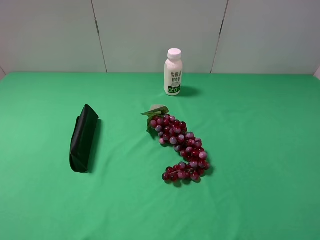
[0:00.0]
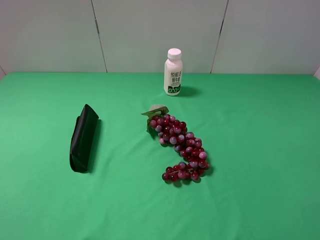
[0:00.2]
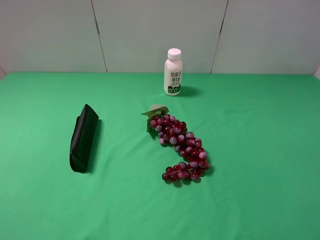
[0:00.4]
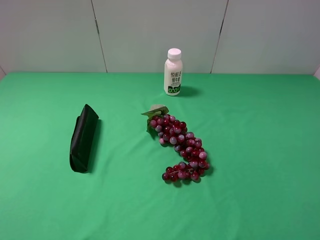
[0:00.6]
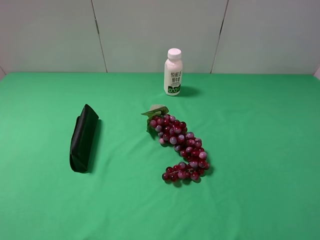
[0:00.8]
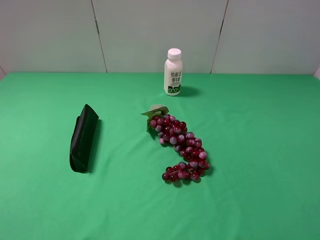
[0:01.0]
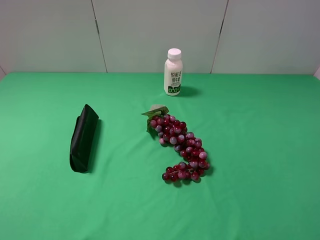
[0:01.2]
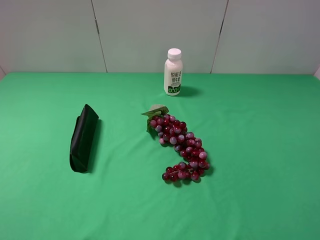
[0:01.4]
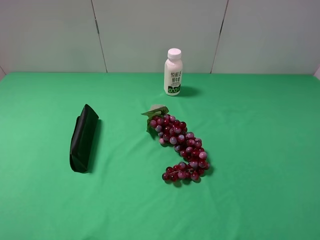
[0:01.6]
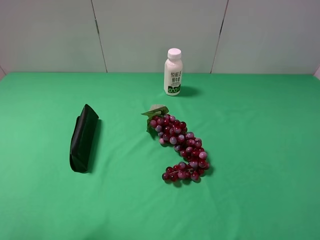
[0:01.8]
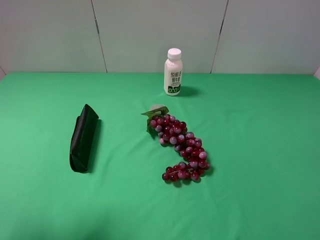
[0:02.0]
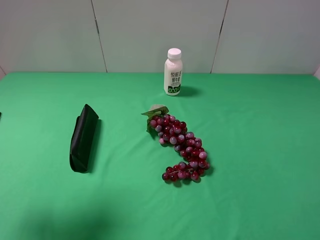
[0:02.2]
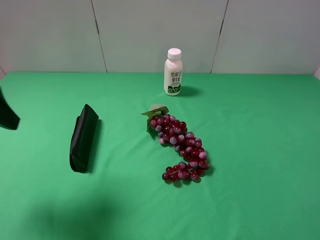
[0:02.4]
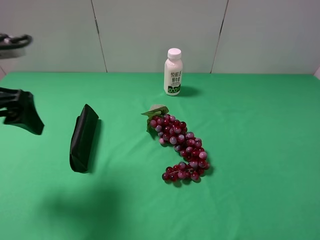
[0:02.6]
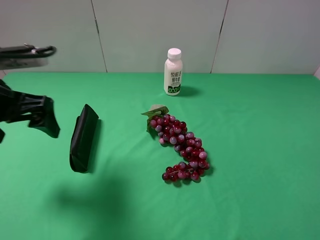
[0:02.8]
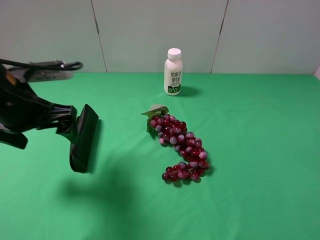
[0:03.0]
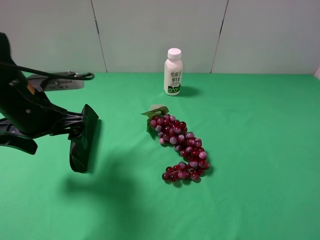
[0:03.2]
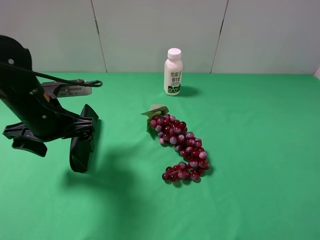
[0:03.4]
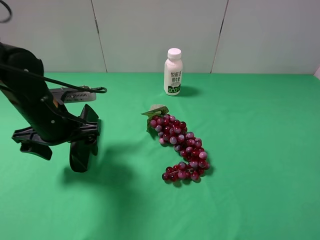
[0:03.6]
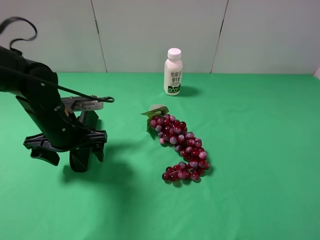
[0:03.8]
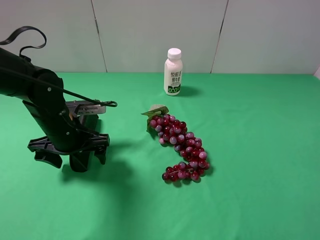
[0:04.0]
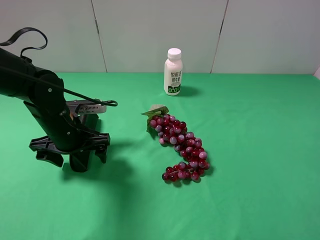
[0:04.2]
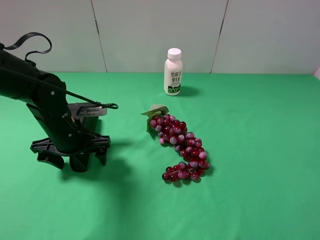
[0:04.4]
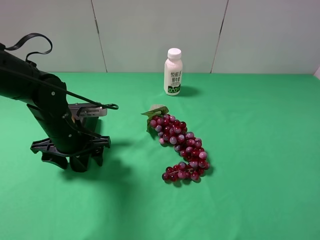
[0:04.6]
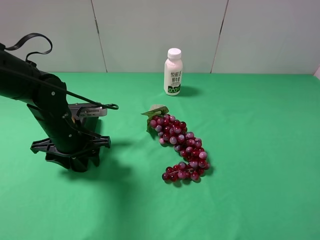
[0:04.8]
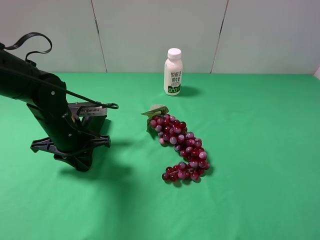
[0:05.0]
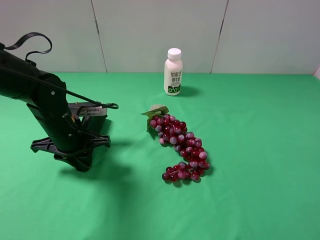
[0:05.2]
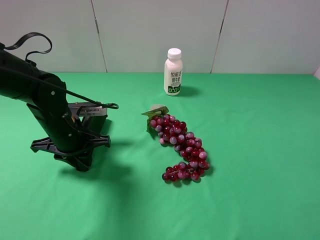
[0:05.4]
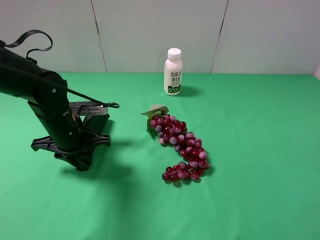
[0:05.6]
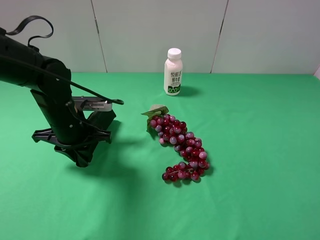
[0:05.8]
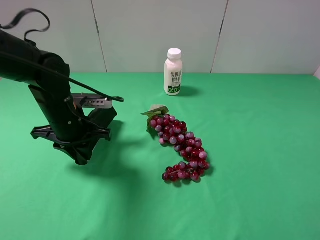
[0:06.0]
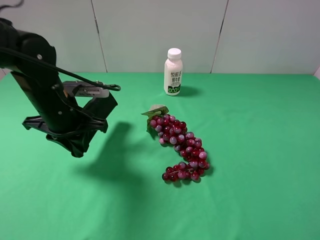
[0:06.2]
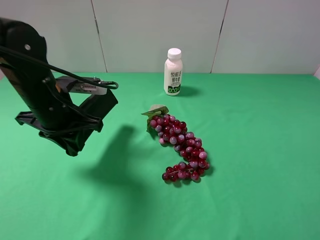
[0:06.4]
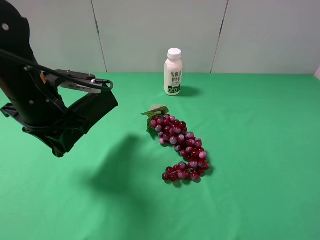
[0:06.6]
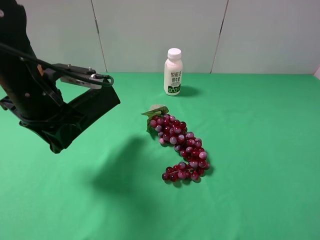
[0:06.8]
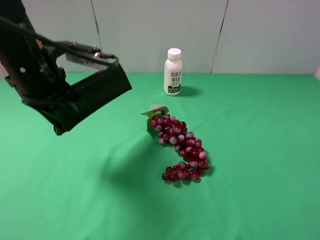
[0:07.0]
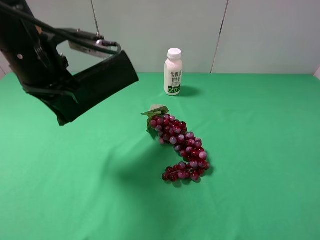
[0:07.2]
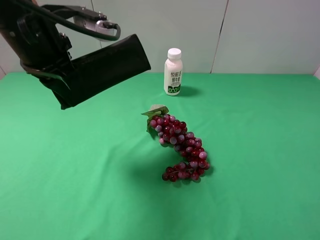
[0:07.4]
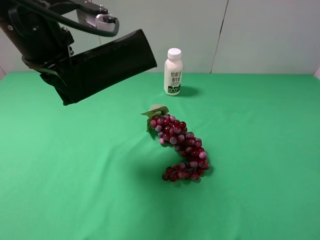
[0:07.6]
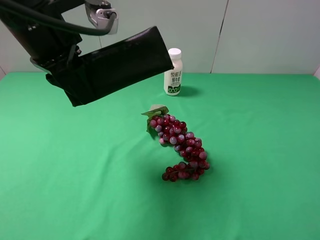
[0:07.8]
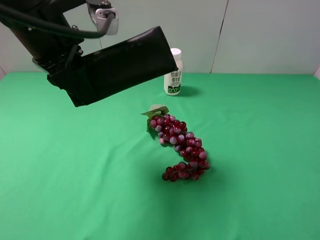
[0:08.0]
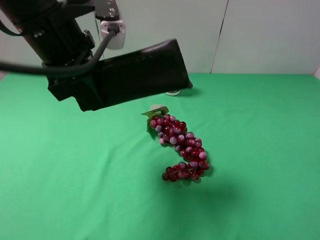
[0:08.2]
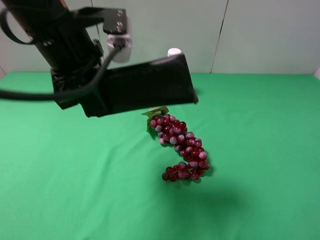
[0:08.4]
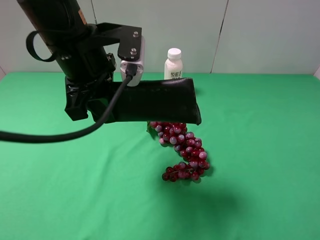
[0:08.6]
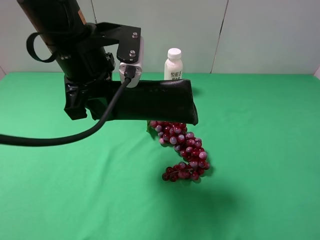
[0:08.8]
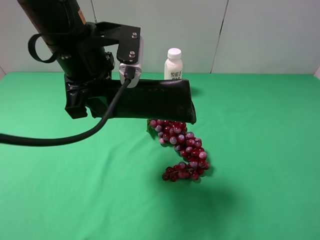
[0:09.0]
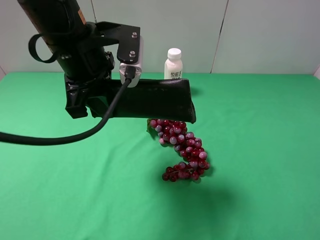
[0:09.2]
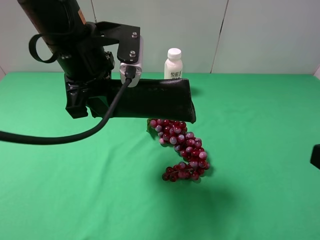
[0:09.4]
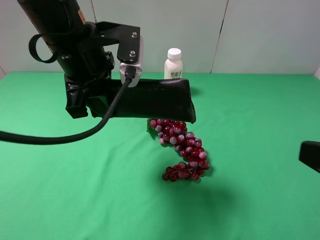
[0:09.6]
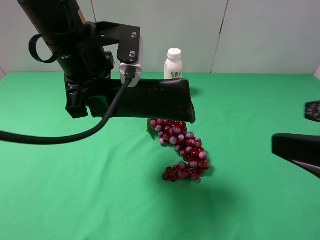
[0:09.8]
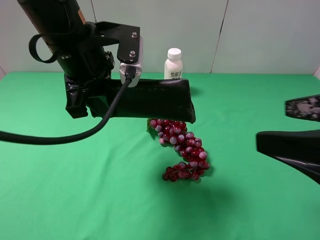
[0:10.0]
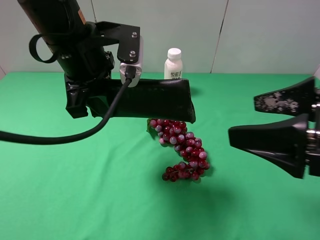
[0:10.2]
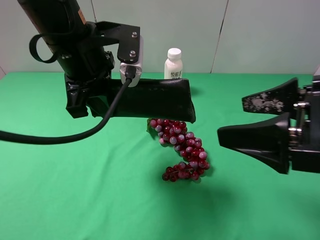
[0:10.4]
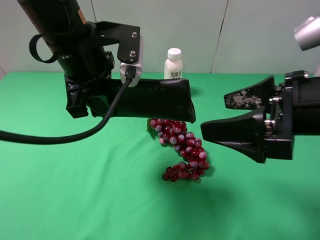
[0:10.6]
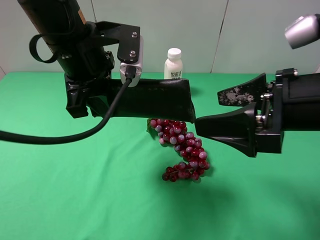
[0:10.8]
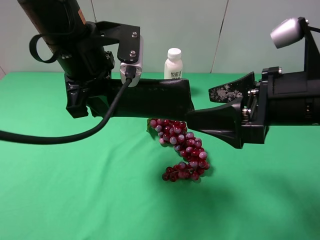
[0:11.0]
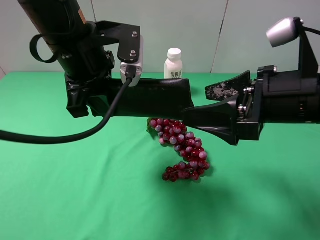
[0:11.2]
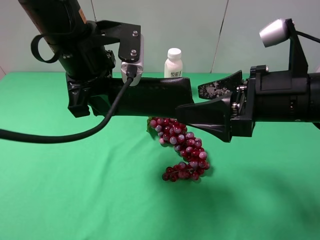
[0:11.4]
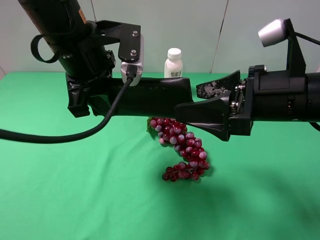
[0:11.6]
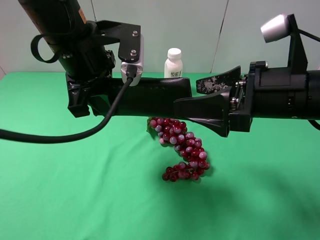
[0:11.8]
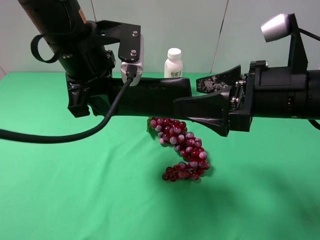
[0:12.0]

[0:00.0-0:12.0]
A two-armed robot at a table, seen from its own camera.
Task of the whole recording: use the left gripper to pick up the item and transfer it from the left gripper to the right gripper.
Step, 0:00.0 to 0:05.2: Use the left gripper to grab the eyeglass case on the left side of the table.
0:01.6 to 0:03.0: The left gripper travels forward, downward and to the right by approximately 25 cm.
0:03.0 to 0:04.4: The left gripper goes roughly 10 cm downward.
0:04.4 to 0:06.0: The left gripper closes.
0:06.0 to 0:07.6: The left gripper heads upward, covering approximately 15 cm.
0:07.6 to 0:09.0: The left gripper moves to the right, some 5 cm.
0:09.0 to 0:10.4: The right gripper shifts some 15 cm forward and to the left.
0:10.4 to 0:12.0: The right gripper goes about 5 cm forward.

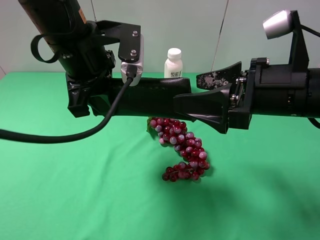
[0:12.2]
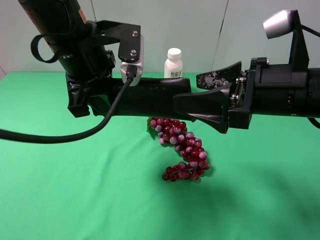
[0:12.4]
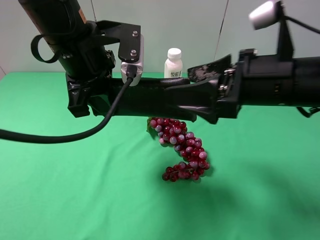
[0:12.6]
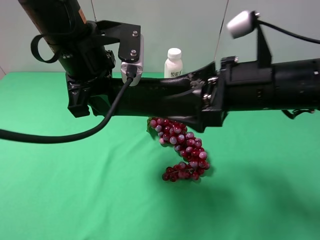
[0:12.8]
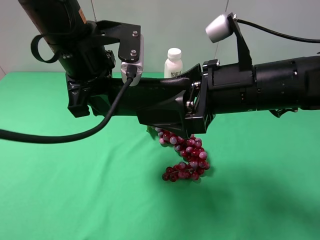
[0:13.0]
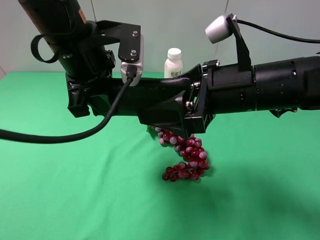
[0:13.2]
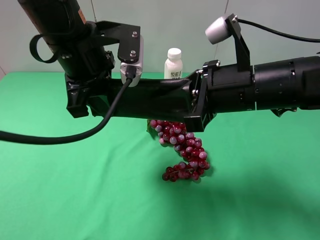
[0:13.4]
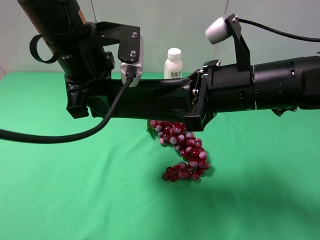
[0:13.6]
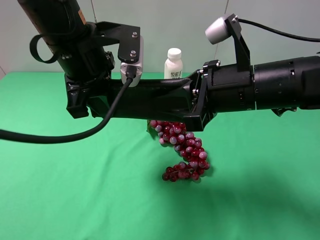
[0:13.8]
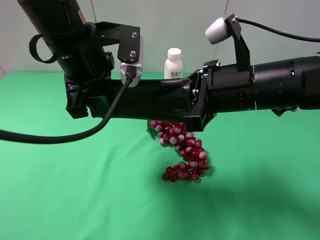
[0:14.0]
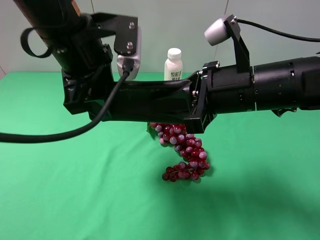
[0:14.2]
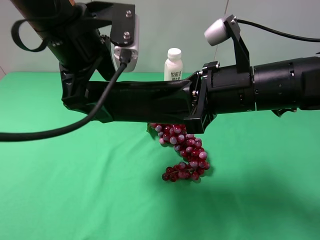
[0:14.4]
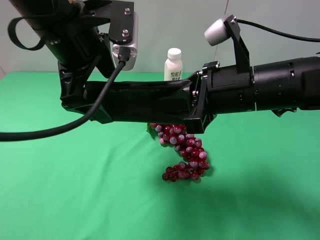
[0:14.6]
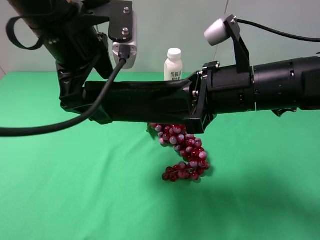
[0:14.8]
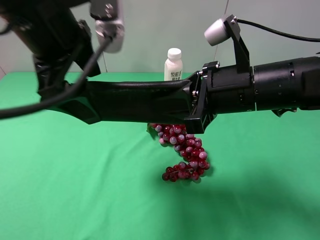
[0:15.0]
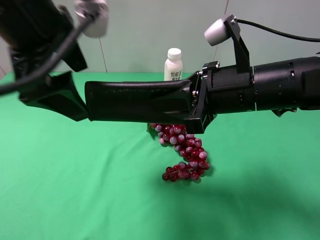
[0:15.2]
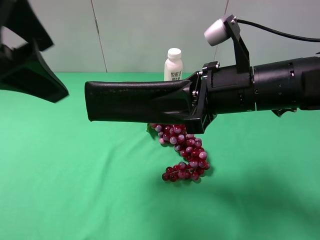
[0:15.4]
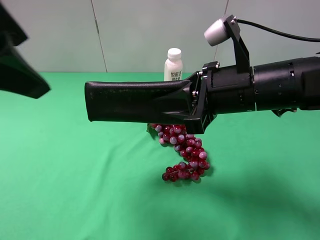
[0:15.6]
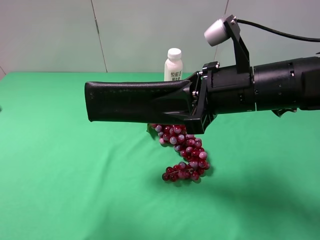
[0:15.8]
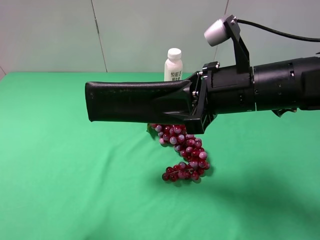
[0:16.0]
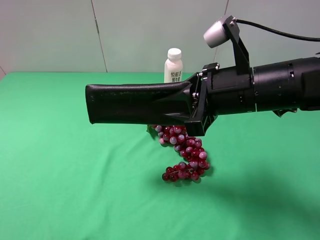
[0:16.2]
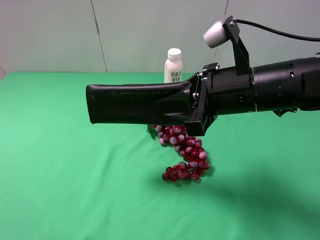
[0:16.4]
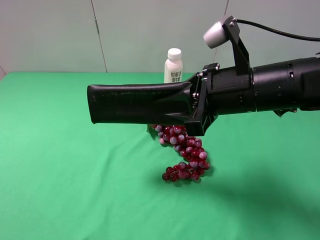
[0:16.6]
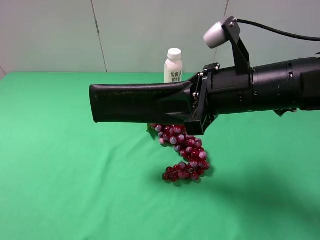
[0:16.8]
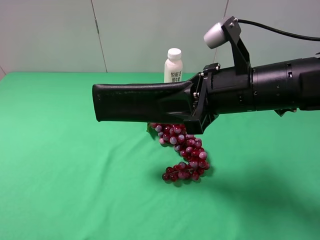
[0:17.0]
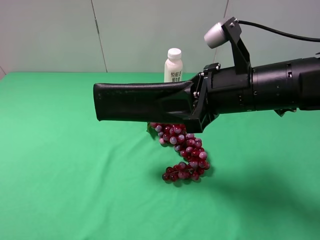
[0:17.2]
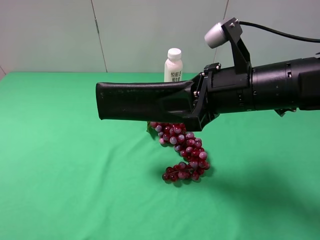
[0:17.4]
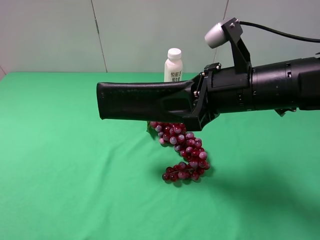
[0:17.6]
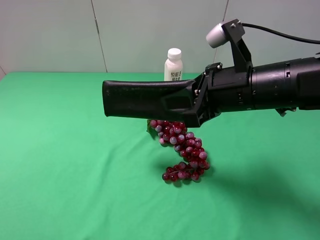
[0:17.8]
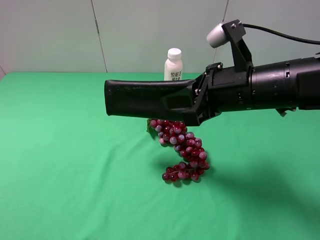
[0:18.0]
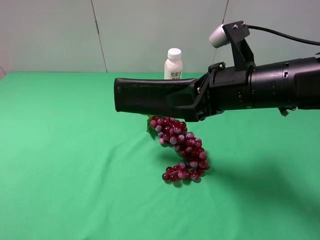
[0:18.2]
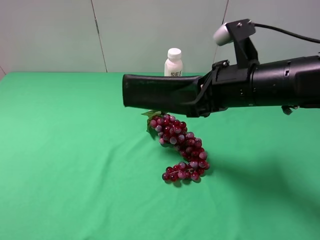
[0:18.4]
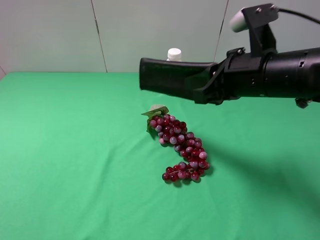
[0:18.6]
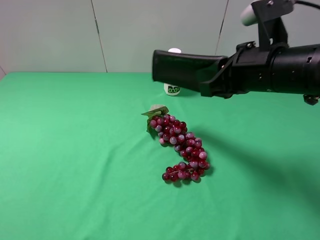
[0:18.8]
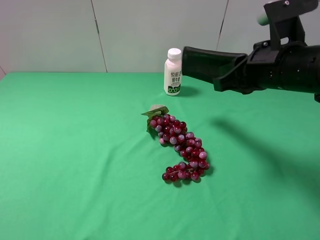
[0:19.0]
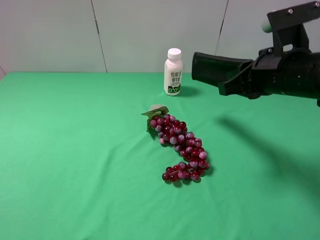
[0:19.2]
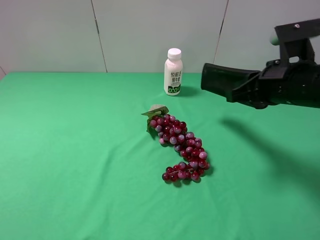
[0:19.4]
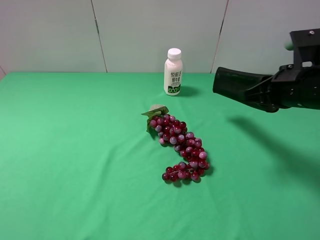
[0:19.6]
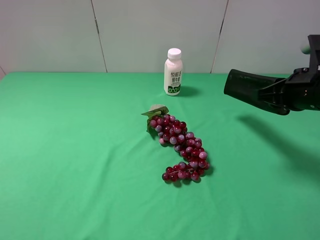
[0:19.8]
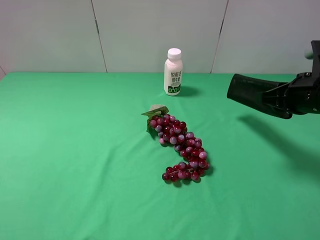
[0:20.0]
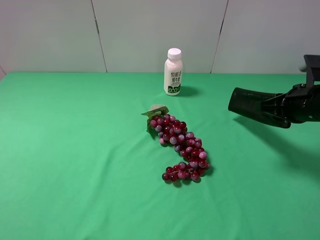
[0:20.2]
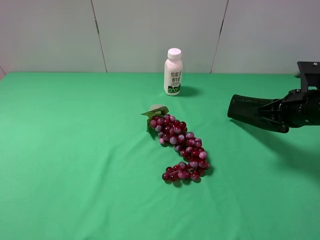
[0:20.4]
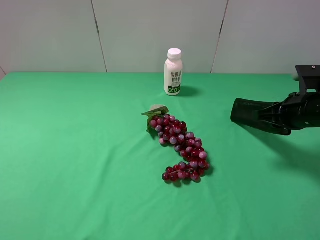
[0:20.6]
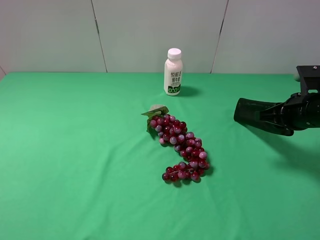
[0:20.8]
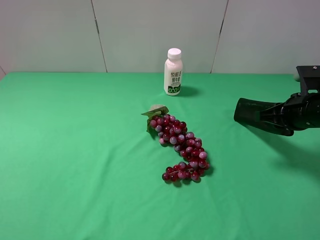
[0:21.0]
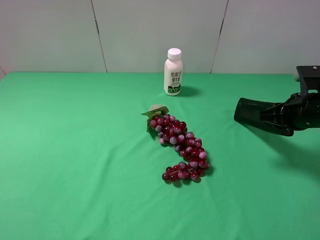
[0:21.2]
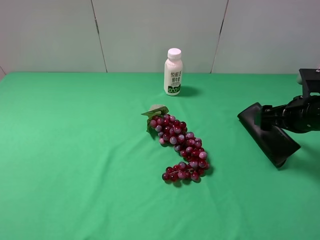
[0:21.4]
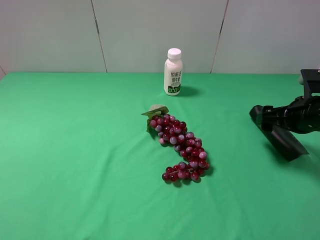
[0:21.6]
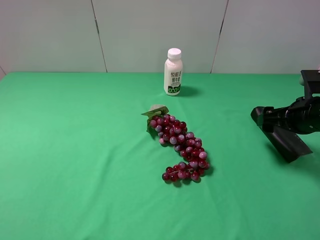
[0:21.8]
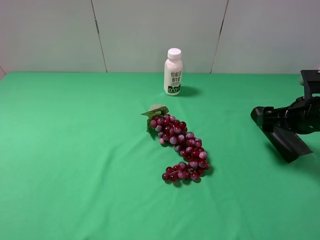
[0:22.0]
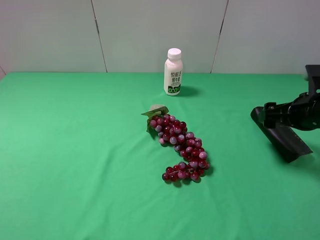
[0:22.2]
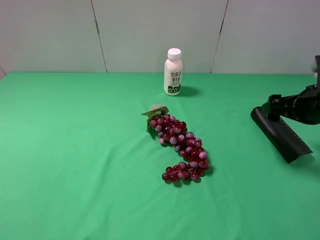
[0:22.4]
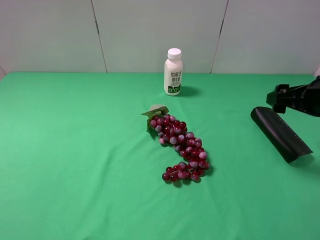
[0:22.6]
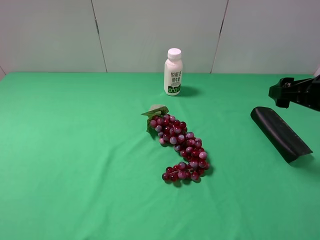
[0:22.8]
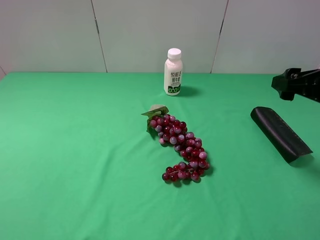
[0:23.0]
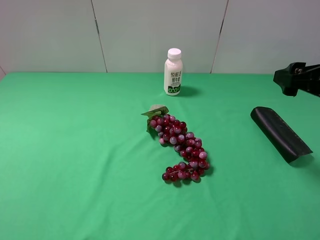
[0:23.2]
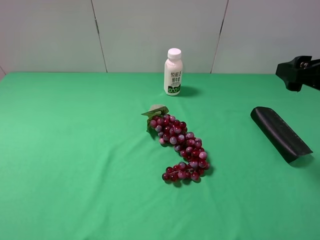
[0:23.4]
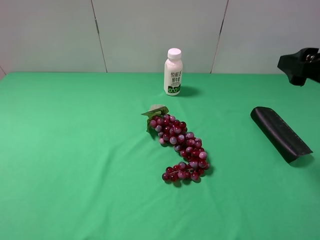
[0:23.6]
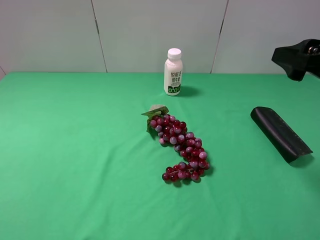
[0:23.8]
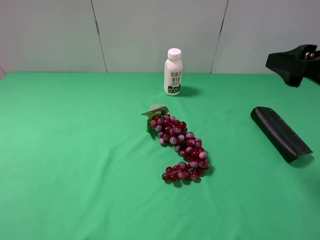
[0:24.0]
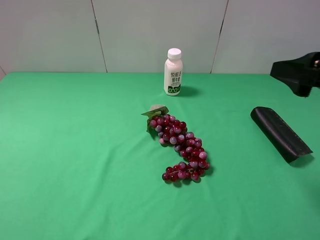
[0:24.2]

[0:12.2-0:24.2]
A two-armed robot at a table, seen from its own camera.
Task of the whole recording: use the left gripper to pick up the item and transfer it from the left gripper to the right gripper.
Step, 0:12.2 to 0:14.8: Pass the eyeglass case to the right gripper.
Step, 0:15.0 to 0:22.4: The right gripper places eyeglass case on the right side of the table.
0:12.2 to 0:13.8: The right gripper changes place by about 5 cm, and closes.
0:13.8 to 0:15.2: The left gripper shifts roughly 5 cm upward, and opens up.
0:15.2 to 0:16.6: The left gripper travels backward and to the left by roughly 25 cm.
0:18.2 to 0:19.8: The right gripper shifts approximately 15 cm to the right.
0:19.8 to 0:21.2: The right gripper shifts by approximately 5 cm.
0:21.2 to 0:22.6: The right gripper changes place by approximately 5 cm, and opens its fingers.
0:22.6 to 0:24.2: The right gripper moves backward and upward, some 10 cm.
